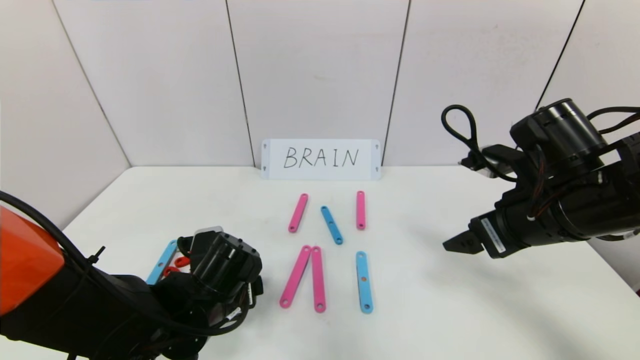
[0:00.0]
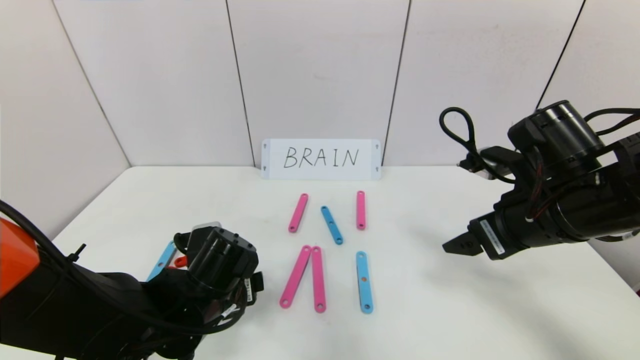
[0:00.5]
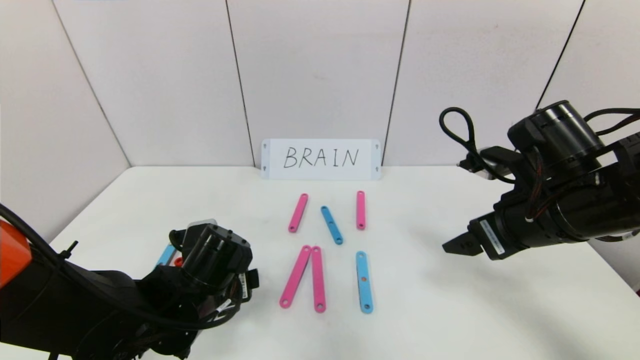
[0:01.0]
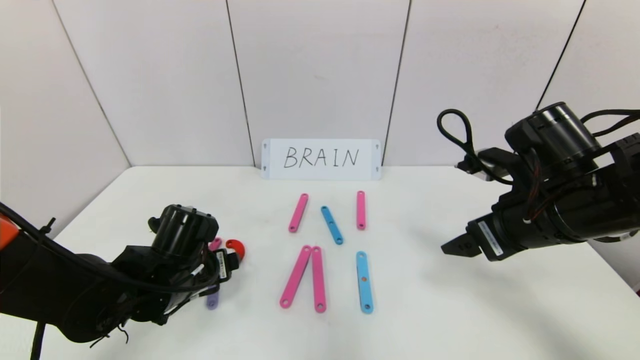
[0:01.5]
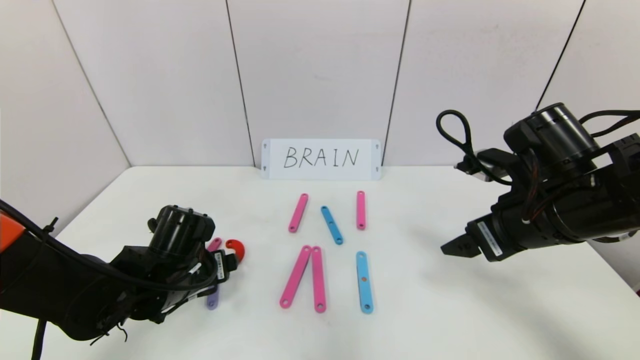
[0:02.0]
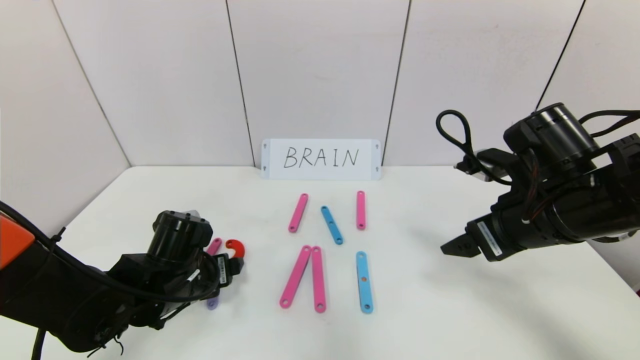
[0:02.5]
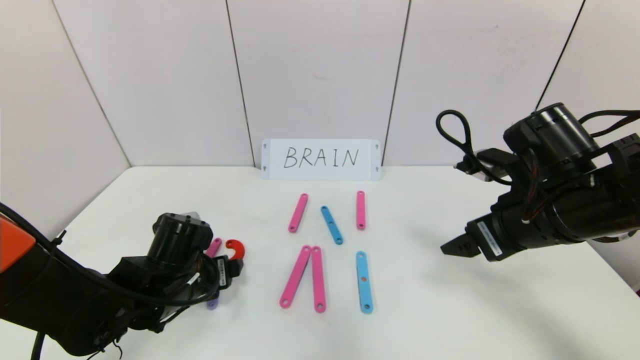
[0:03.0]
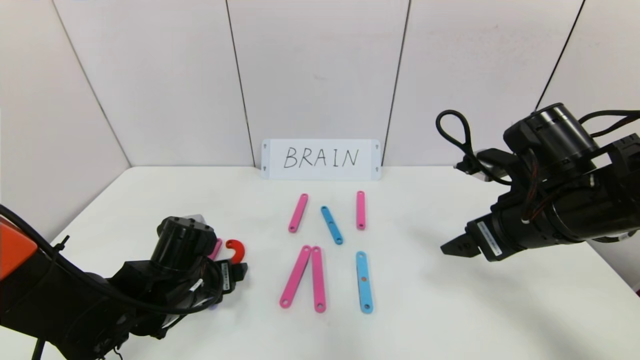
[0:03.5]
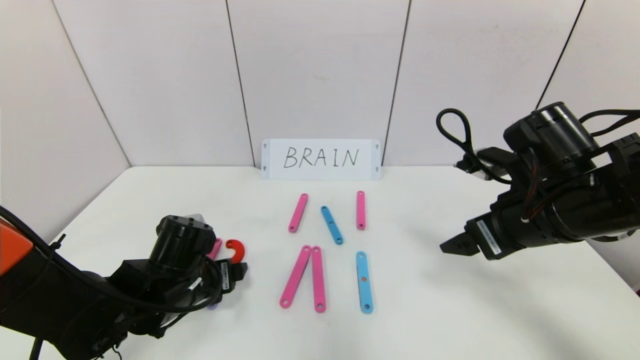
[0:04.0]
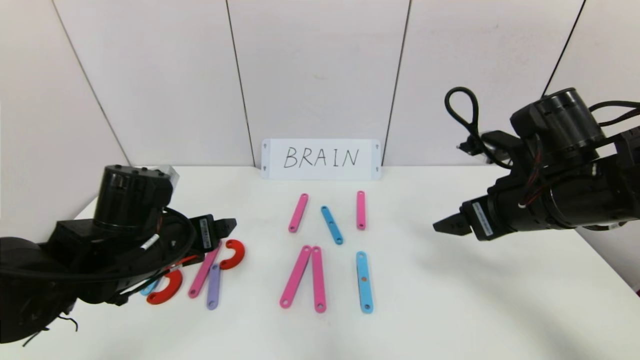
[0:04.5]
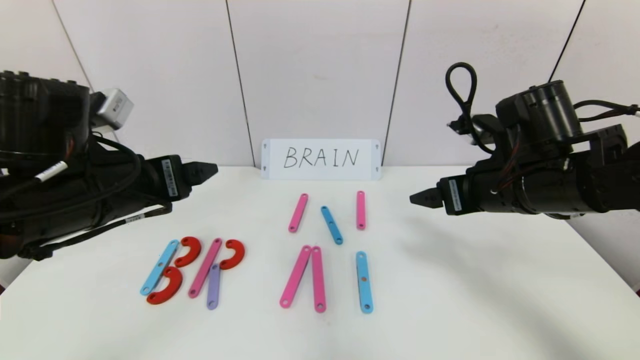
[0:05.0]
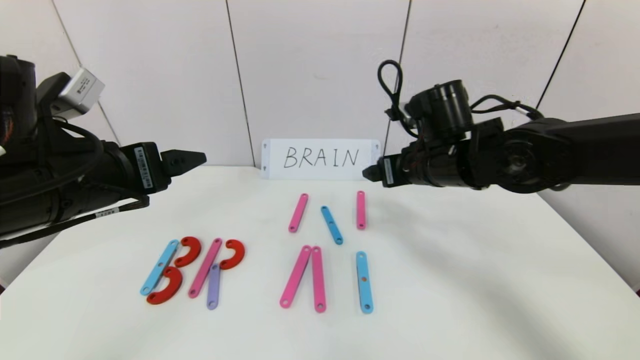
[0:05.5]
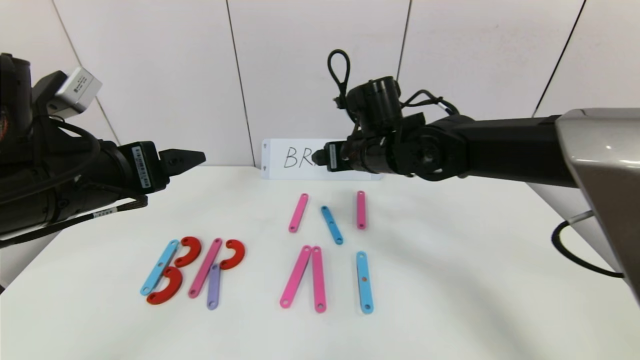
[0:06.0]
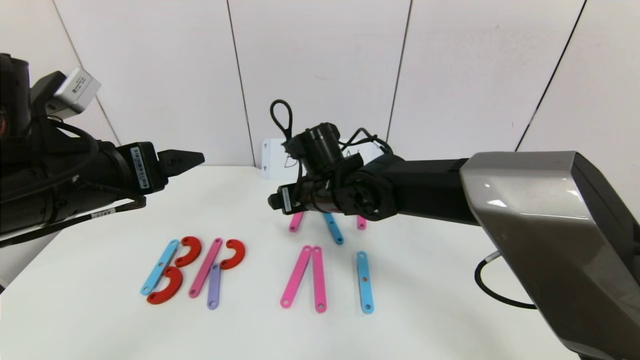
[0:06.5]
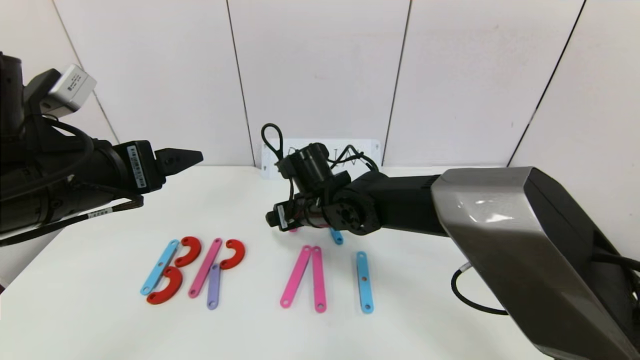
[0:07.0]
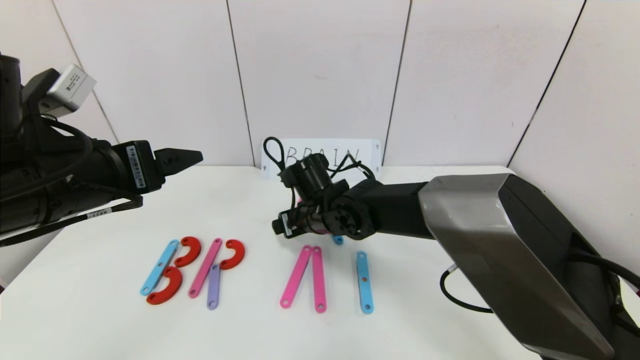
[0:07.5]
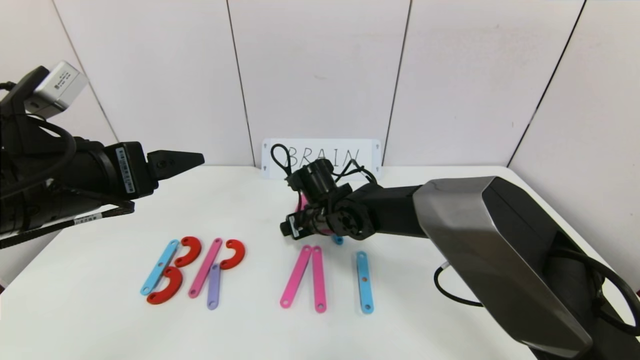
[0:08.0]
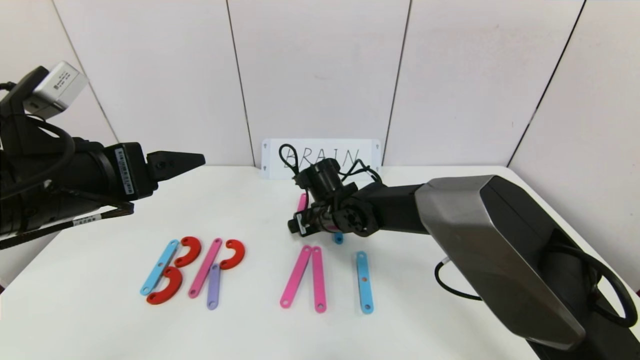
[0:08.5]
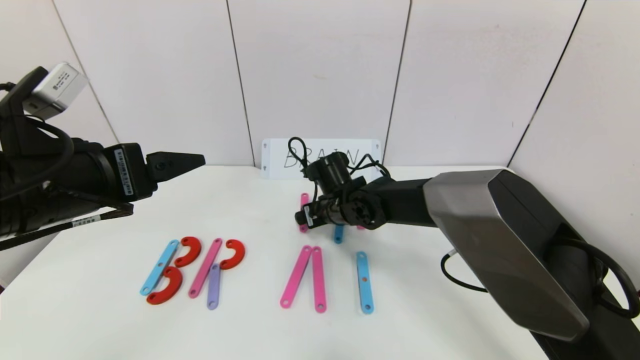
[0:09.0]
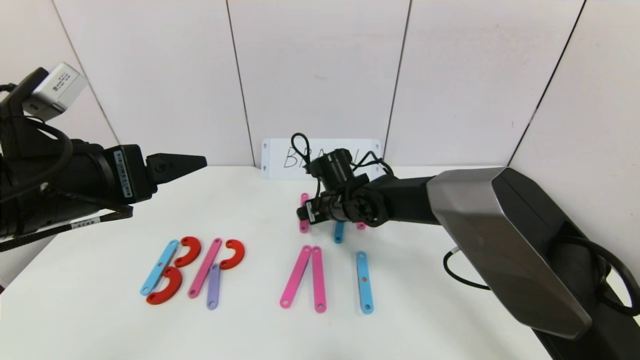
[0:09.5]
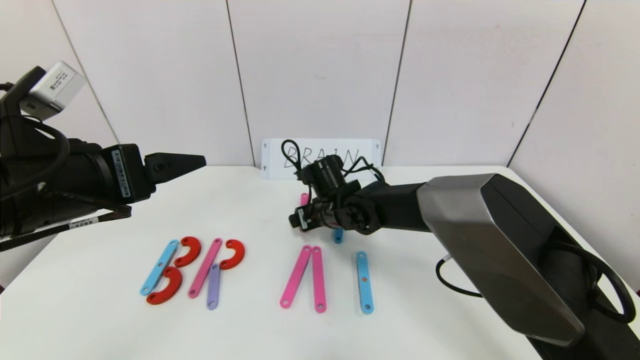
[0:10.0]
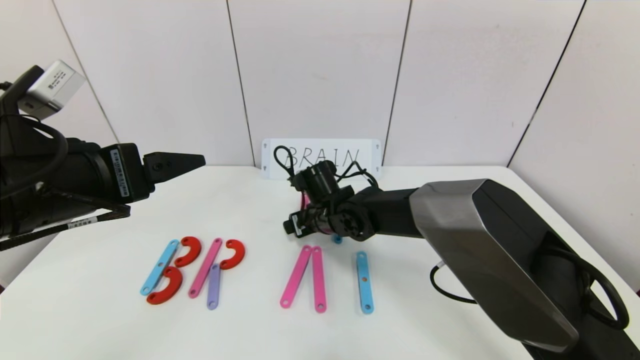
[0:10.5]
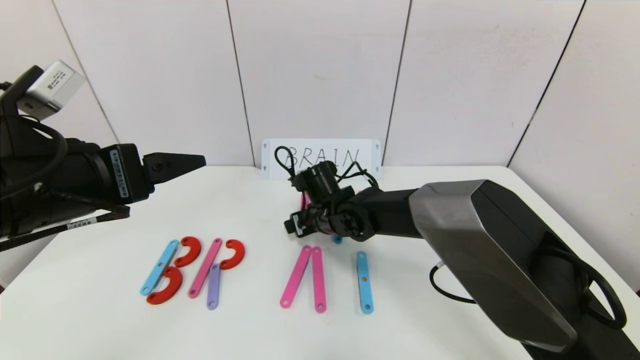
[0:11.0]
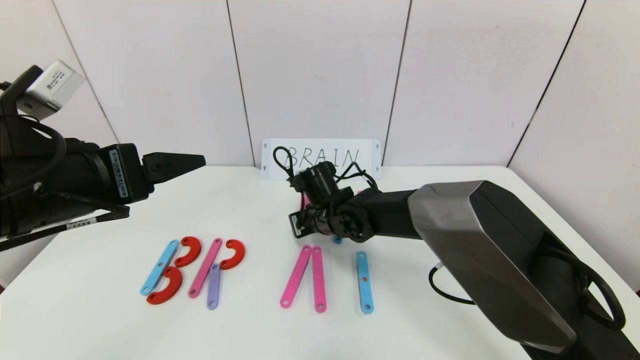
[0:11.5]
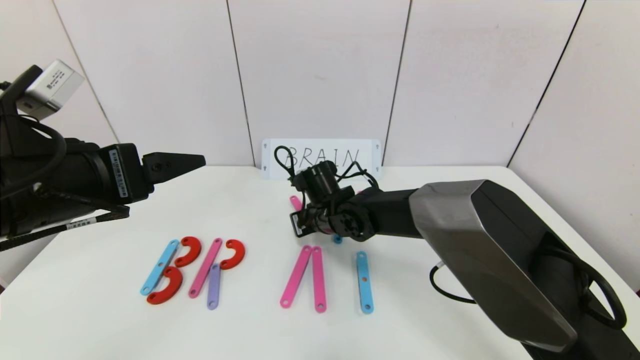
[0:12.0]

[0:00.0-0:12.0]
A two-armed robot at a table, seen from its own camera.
Task of the whole recording: rearrange the word baai as brain.
Step, 0:00.0 to 0:04.0: Place the character R between first character B and third character A.
0:00.0 to 0:02.0: The left gripper shifts about 5 cm to the left.
0:02.0 to 0:04.0: There are only small adjustments of the grippers.
0:04.0 to 0:06.0: The right gripper moves to the left and forward, roughly 20 cm, while the left gripper heads upward, covering about 20 cm.
0:06.0 to 0:08.0: The right gripper is displaced downward and to the left by some 15 cm.
0:08.0 to 0:10.0: There are only small adjustments of the grippers.
0:10.0 to 0:12.0: The right gripper closes up.

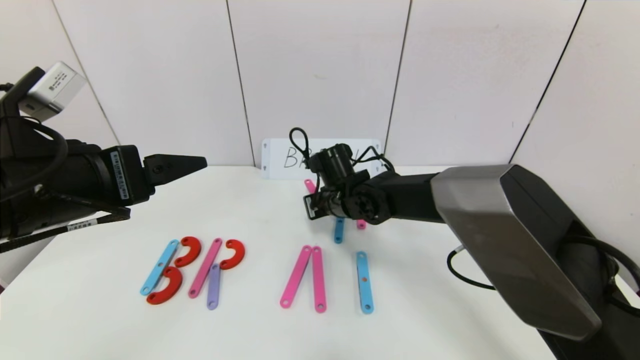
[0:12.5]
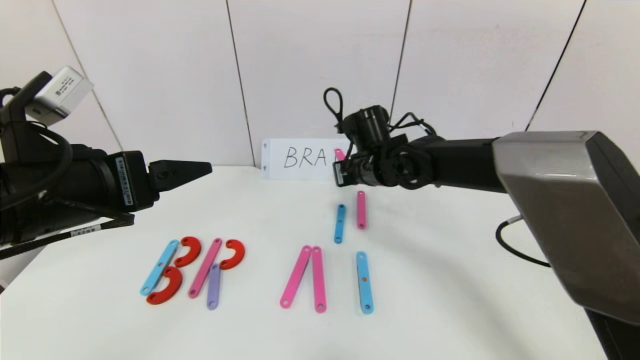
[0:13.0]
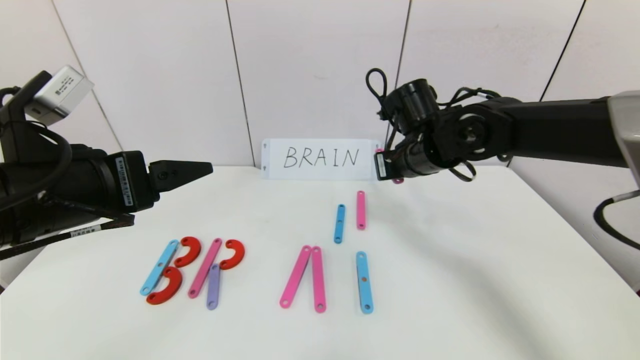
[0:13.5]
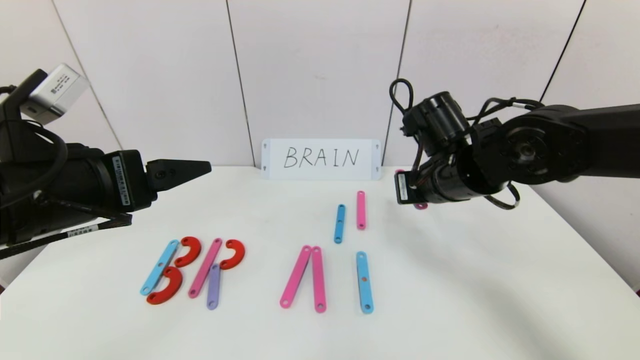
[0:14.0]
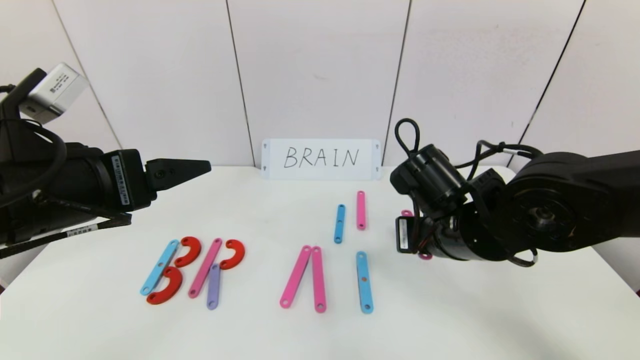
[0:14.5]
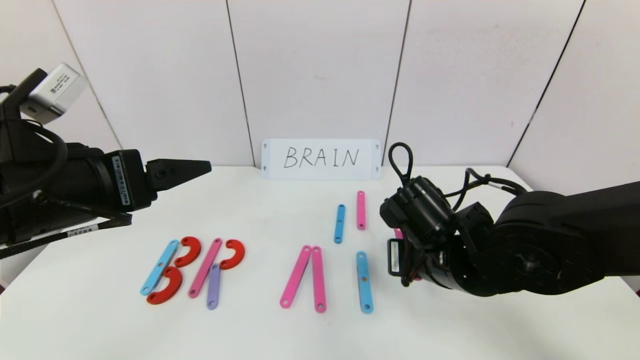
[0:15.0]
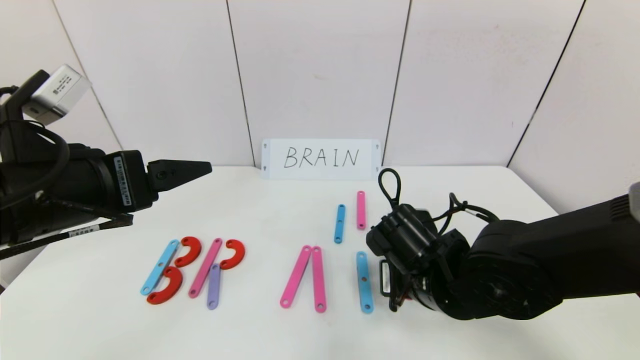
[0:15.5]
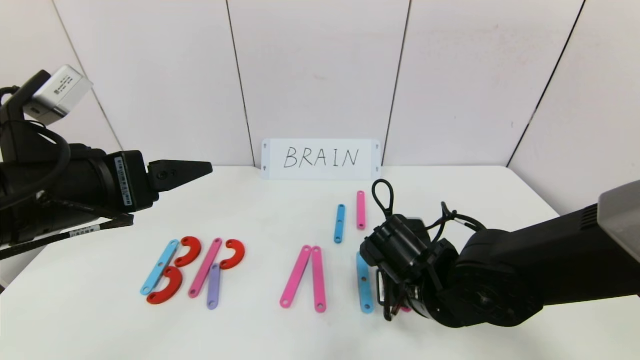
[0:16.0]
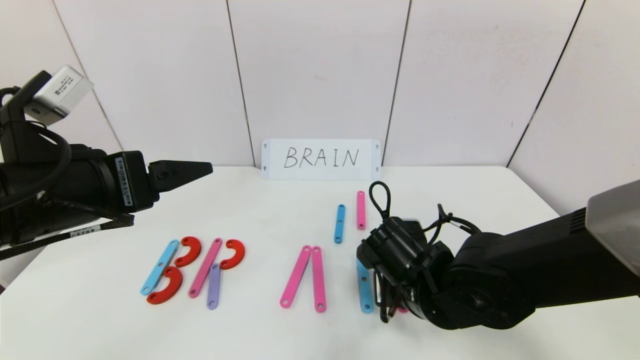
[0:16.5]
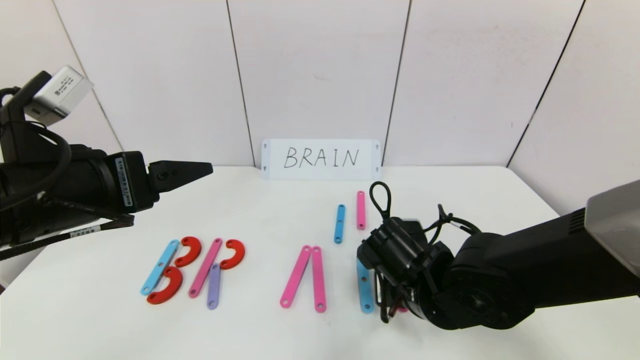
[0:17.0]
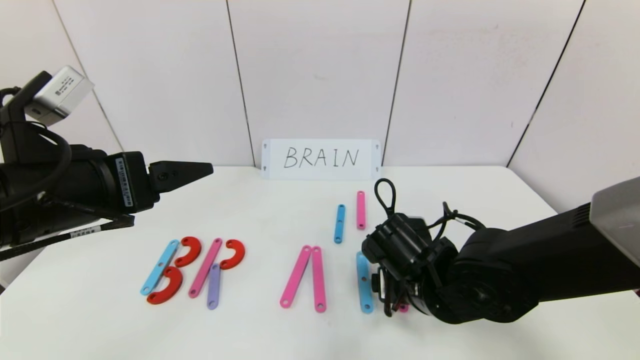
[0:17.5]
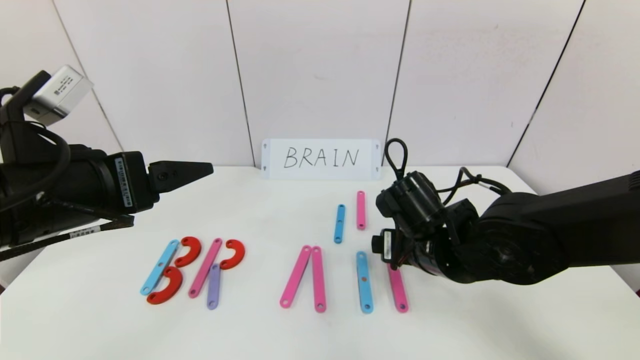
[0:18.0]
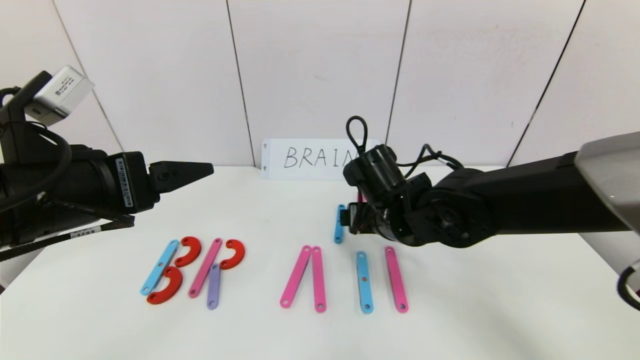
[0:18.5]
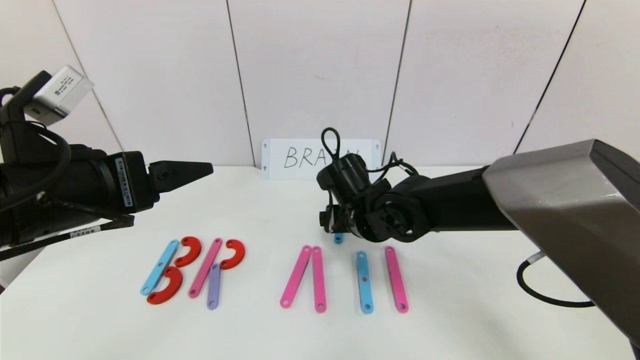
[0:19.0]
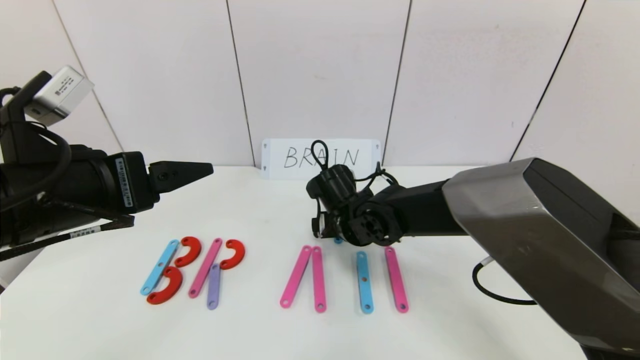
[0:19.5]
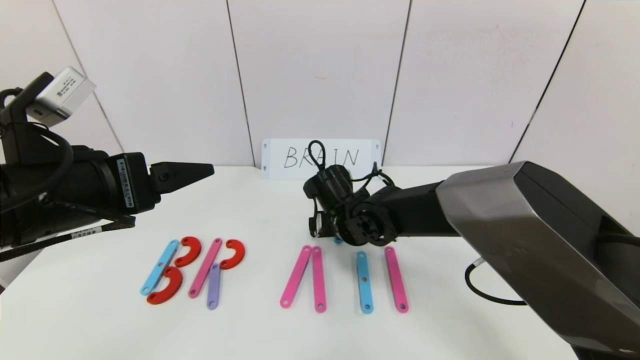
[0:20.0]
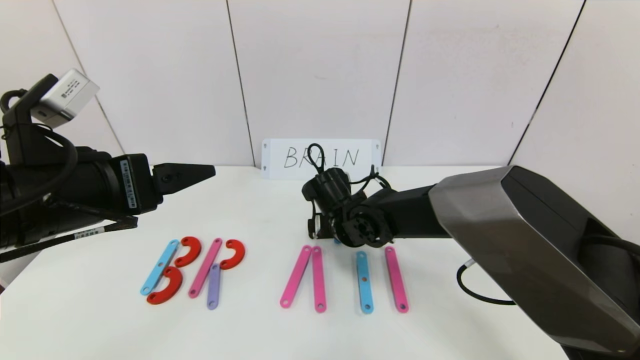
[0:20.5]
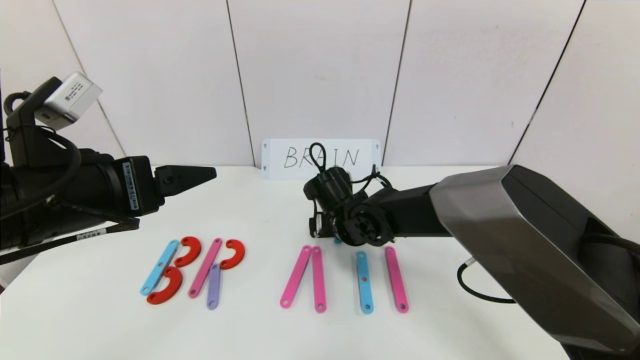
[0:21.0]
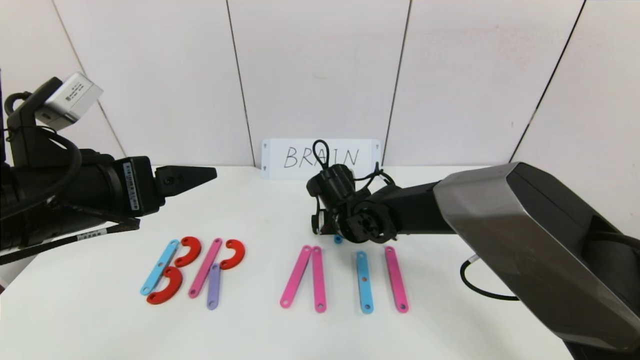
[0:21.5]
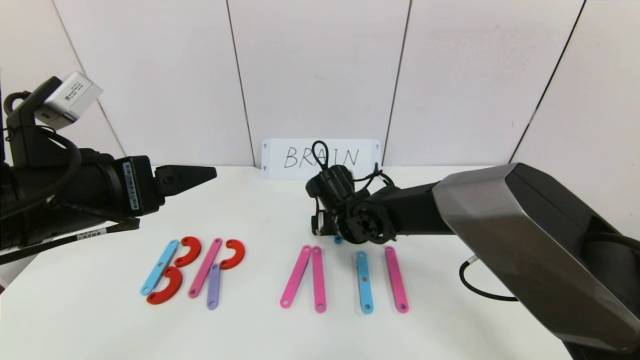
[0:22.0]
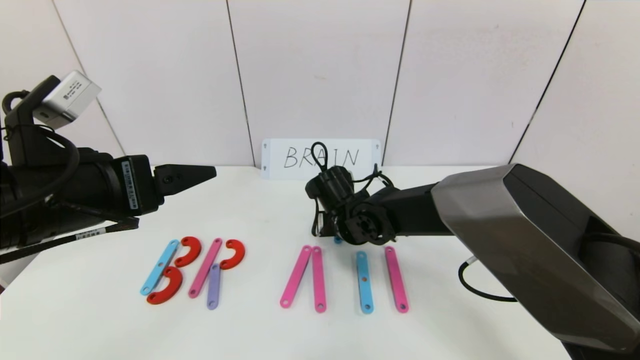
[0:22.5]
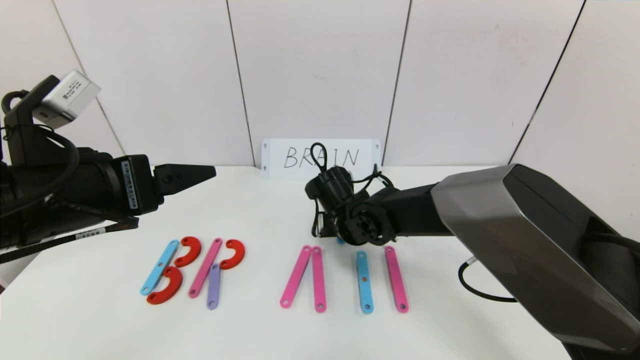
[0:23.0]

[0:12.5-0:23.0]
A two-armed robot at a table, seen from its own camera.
Task of the whole recording: rearrange the word baai as brain.
0:12.5 to 0:14.5: The right gripper travels backward and to the right by about 20 cm.
0:14.5 to 0:16.5: The right gripper is displaced downward by approximately 10 cm.
0:16.5 to 0:19.0: The right gripper travels forward and to the left by about 10 cm, and opens up.
0:19.0 to 0:21.0: The grippers stay close to where they were, moving slightly.
0:21.0 to 0:23.0: The right gripper closes up.
